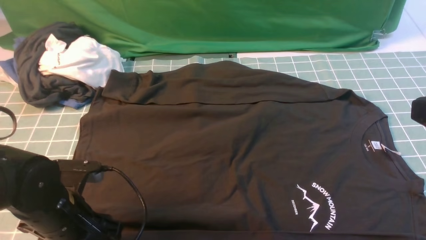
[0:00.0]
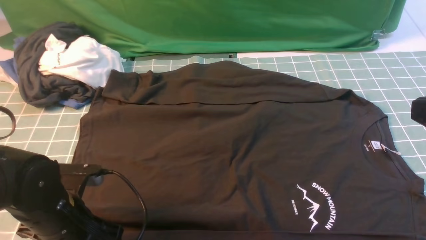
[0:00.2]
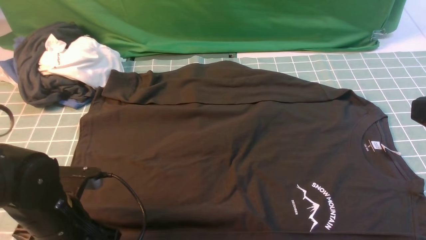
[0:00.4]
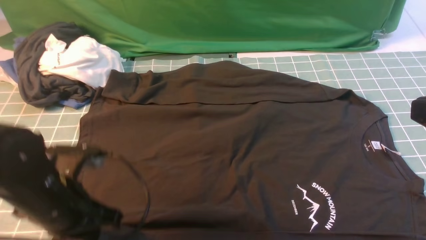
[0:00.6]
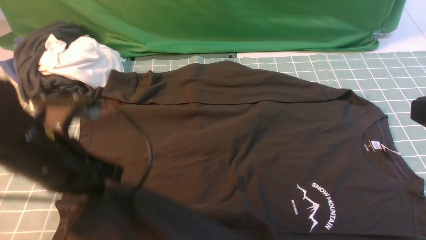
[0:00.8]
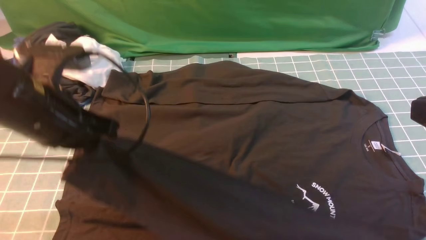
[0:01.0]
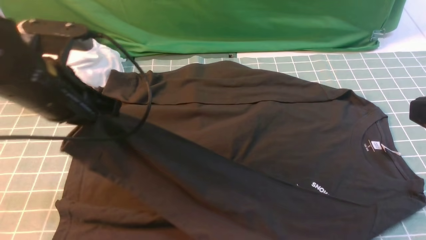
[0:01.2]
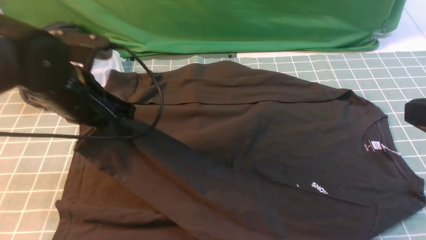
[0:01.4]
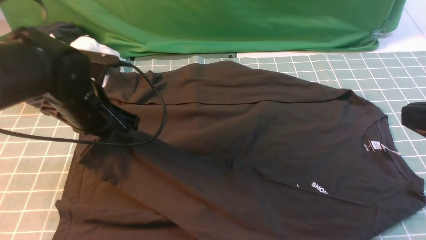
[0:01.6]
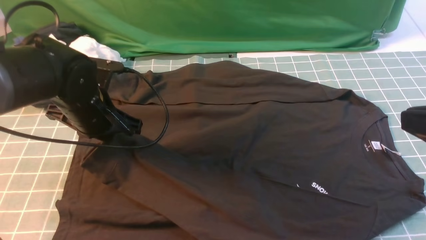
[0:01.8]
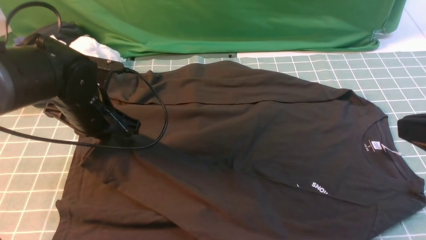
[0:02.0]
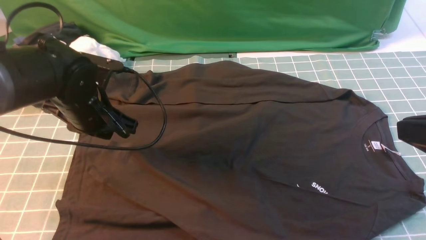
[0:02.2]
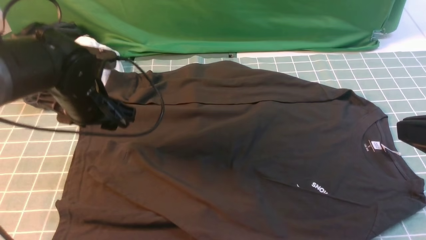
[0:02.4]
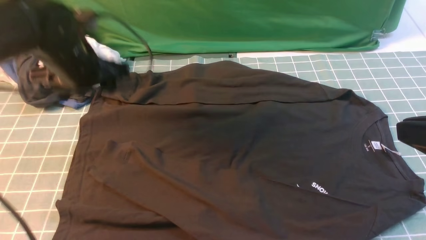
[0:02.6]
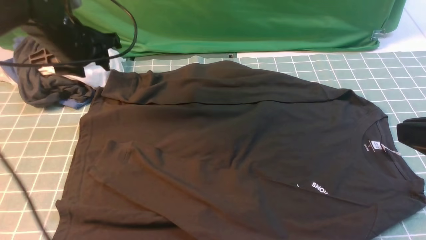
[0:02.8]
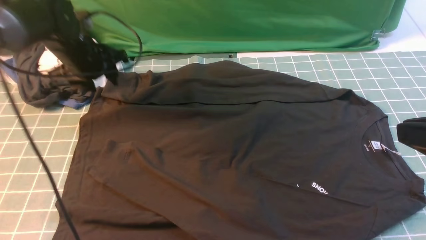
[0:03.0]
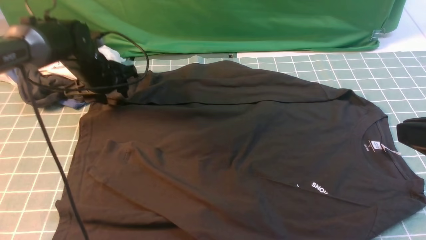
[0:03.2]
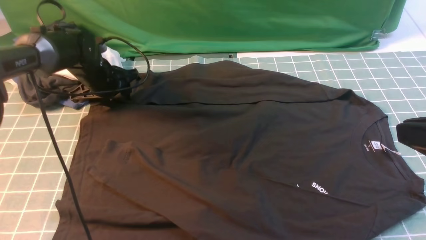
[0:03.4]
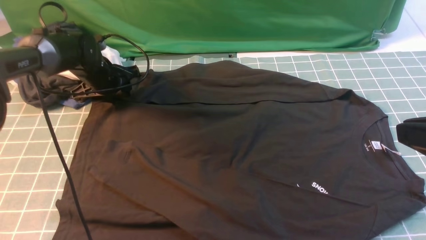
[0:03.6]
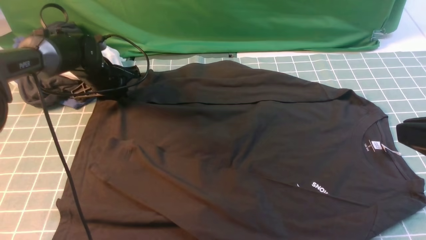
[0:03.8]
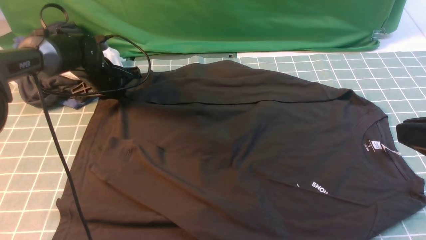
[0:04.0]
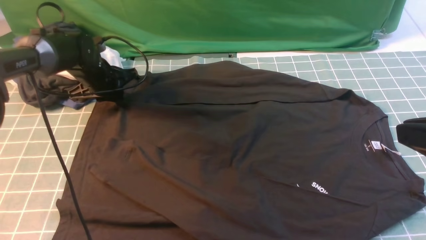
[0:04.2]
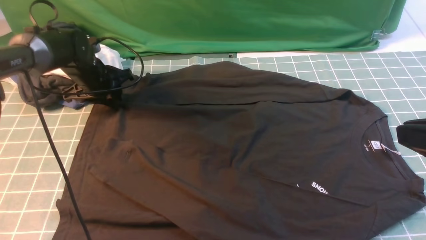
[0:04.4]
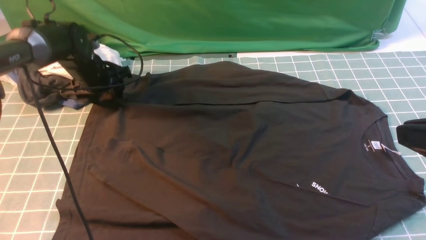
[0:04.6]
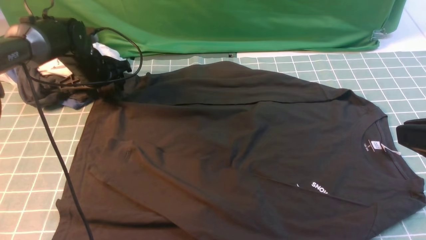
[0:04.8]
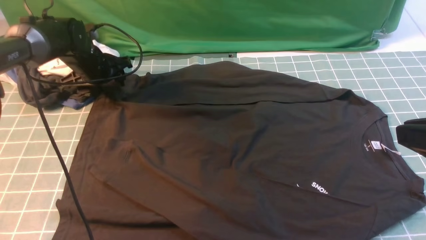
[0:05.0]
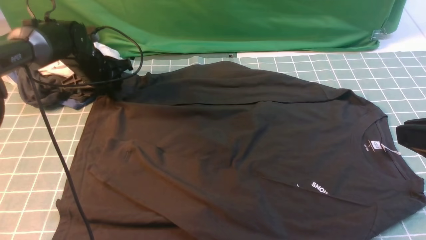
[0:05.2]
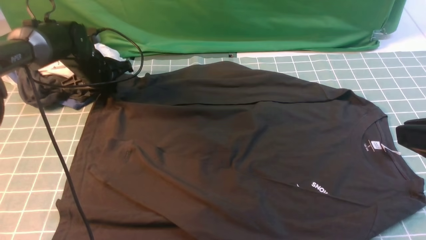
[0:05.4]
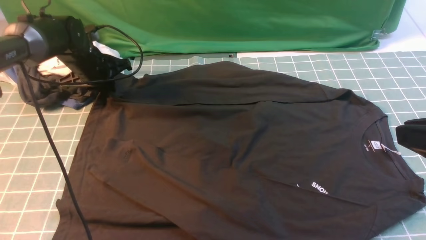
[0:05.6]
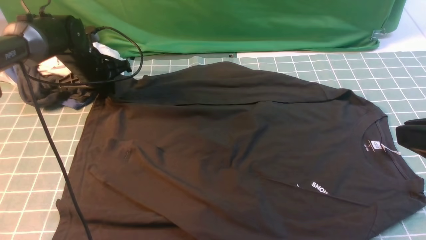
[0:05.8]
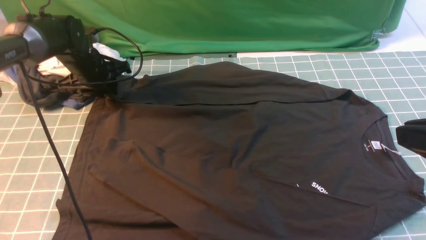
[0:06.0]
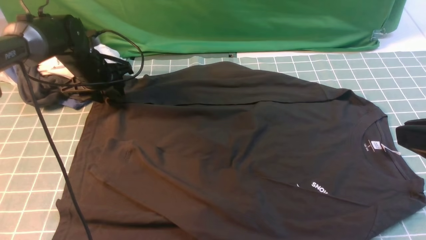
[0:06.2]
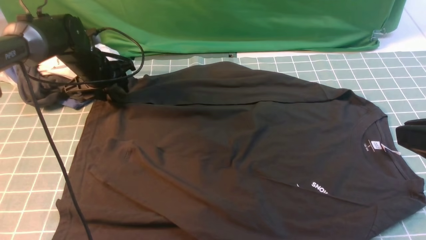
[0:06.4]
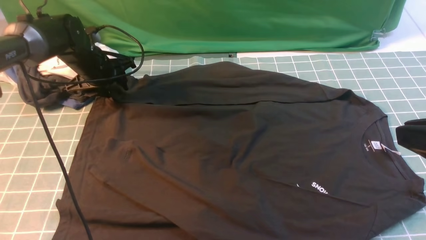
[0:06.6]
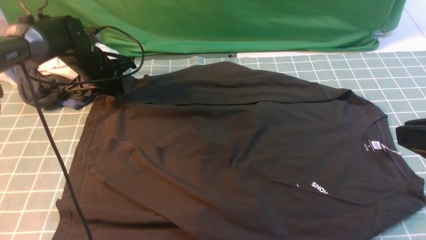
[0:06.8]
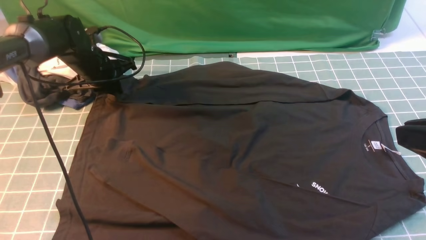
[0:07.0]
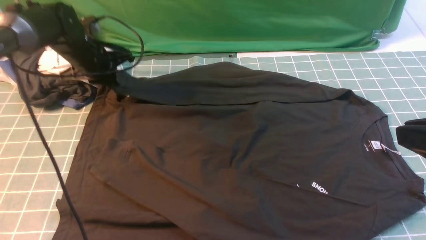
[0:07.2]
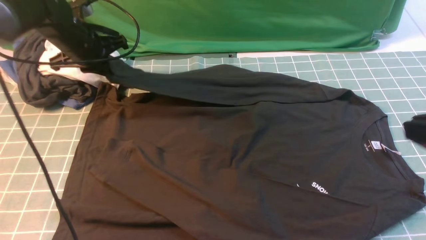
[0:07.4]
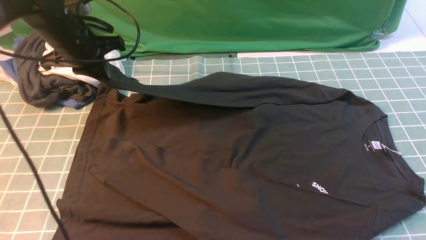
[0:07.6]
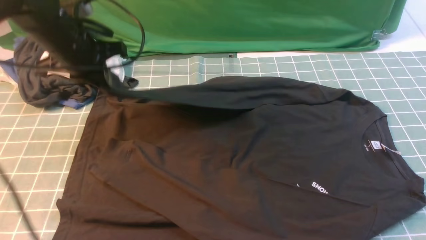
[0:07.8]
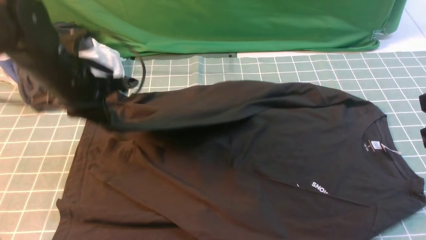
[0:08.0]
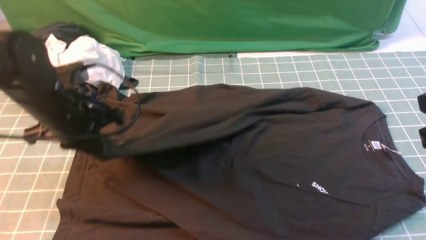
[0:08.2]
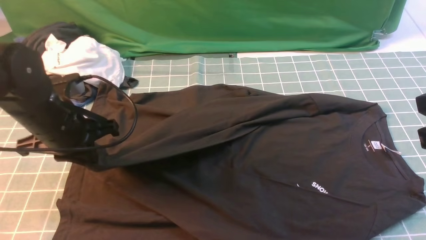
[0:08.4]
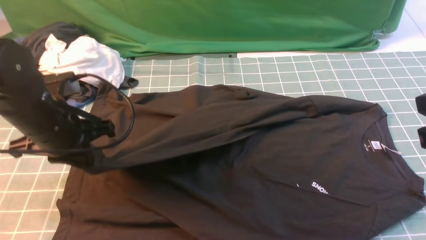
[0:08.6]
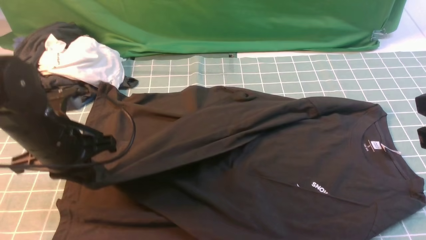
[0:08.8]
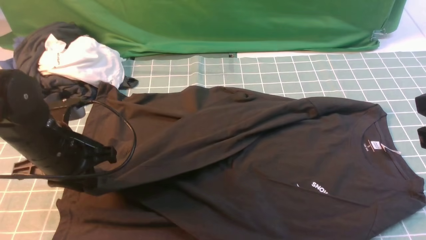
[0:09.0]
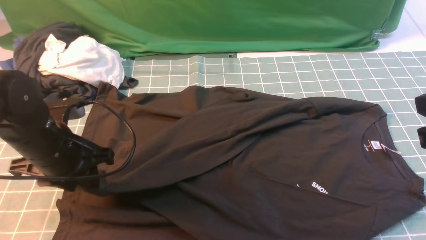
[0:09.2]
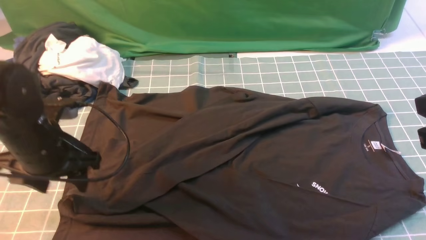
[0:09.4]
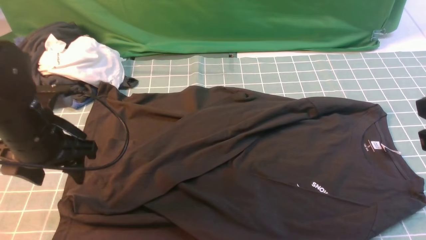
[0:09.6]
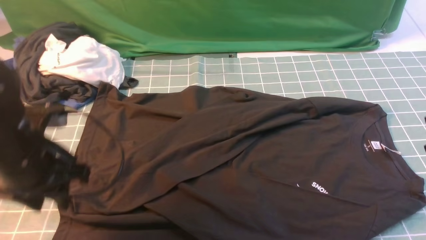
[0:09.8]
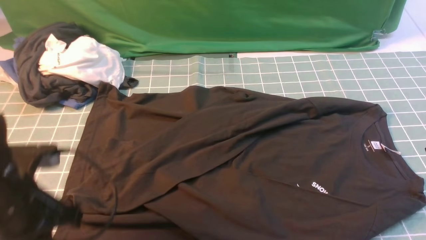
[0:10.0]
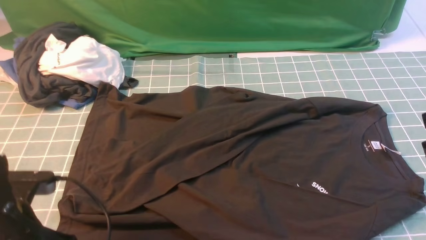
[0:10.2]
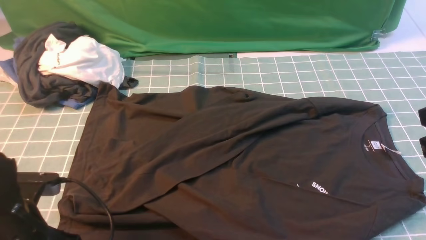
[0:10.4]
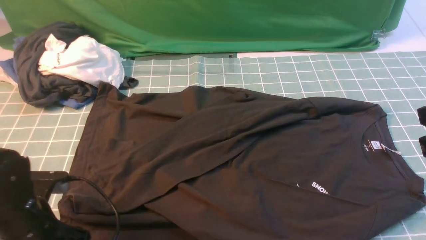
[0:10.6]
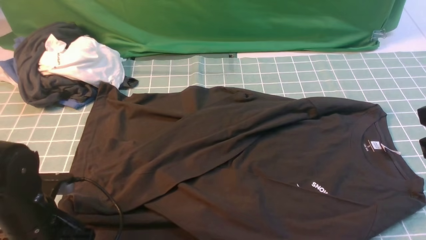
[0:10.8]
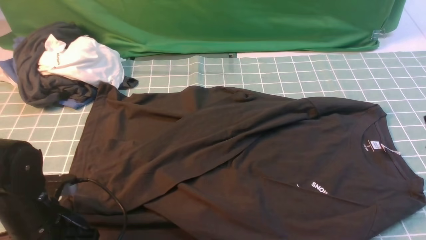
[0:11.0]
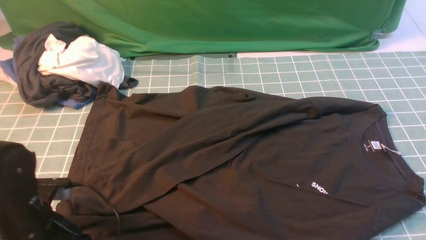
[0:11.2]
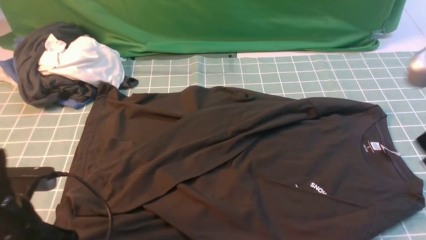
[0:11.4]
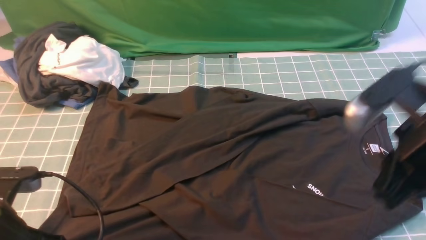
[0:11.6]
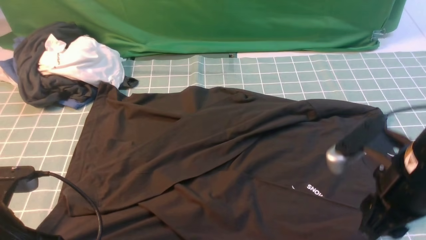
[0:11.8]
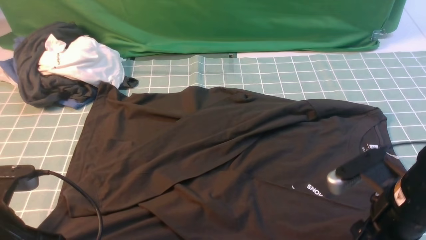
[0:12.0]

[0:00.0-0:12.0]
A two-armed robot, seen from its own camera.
Step, 0:00.6 to 0:02.0: use the left arm to drag and place the cuff at the centered position on the left edge of the fabric.
Step, 0:02.4 to 0:07.0: use the left arm to clamp the cuff farthest from it.
Step, 0:07.2 to 0:09.6: use the left arm to drag and drop the cuff onto the cuff closest to the left arm.
0:00.0 to 0:01.6: The left gripper travels forward and upward by approximately 15 cm, and closes up.
0:01.6 to 0:03.0: The left gripper moves forward and to the left, approximately 15 cm, and opens up.
0:03.0 to 0:04.4: The left gripper goes roughly 5 cm downward, and closes, then reopens.
0:04.4 to 0:06.0: The left gripper closes and opens again.
0:06.0 to 0:07.6: The left gripper goes about 10 cm upward and backward, and closes up.
0:07.6 to 0:09.0: The left gripper is displaced backward by some 15 cm.
0:09.0 to 0:10.4: The left gripper is displaced backward by about 10 cm, and opens its fingers.
0:10.4 to 0:12.0: The left gripper ends up some 5 cm from where it was, and closes; the right gripper travels downward by roughly 15 cm, and opens its fingers.

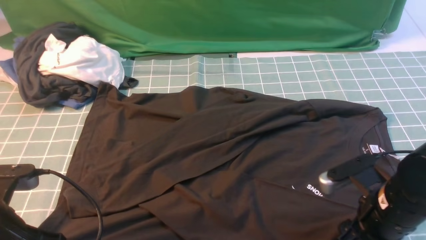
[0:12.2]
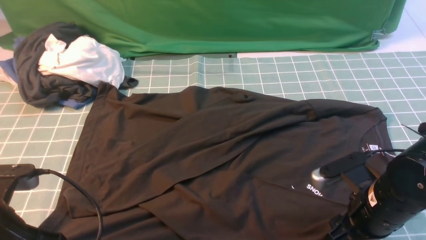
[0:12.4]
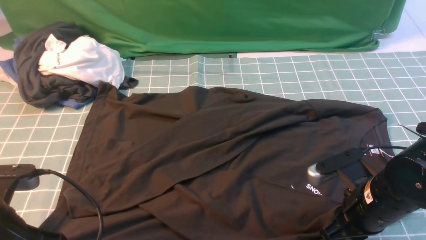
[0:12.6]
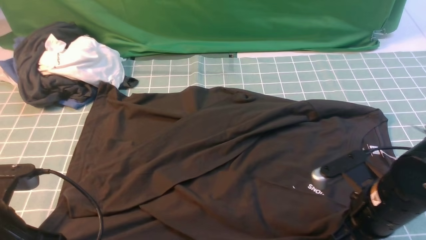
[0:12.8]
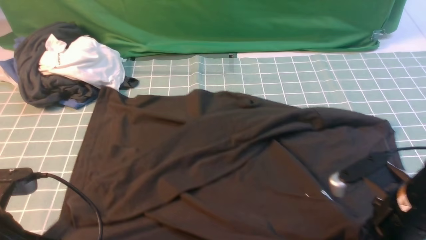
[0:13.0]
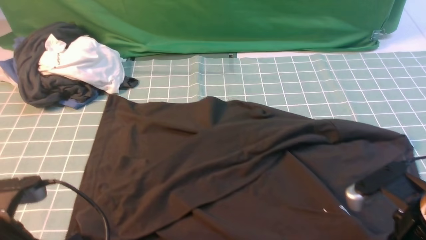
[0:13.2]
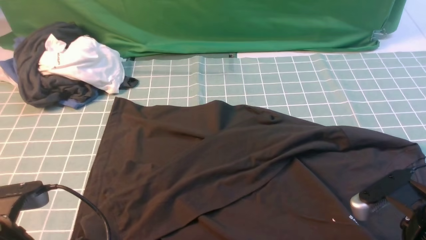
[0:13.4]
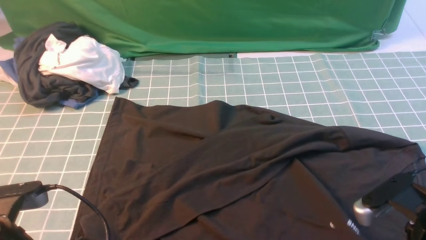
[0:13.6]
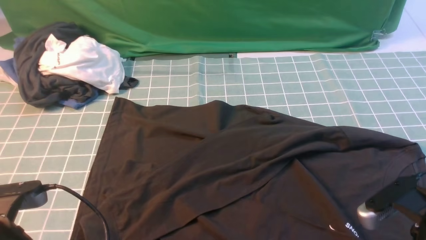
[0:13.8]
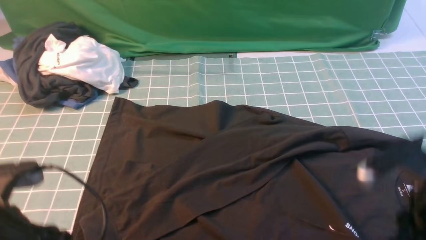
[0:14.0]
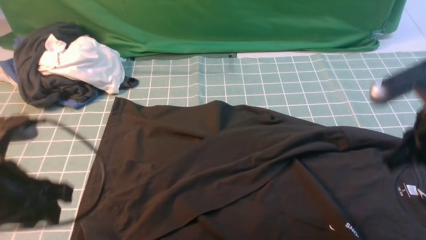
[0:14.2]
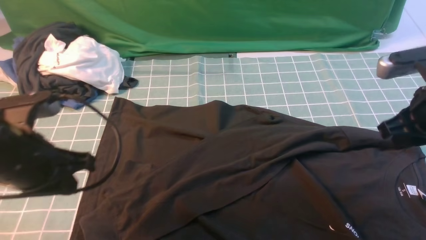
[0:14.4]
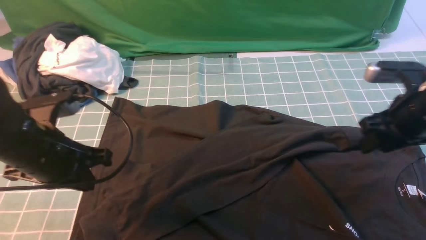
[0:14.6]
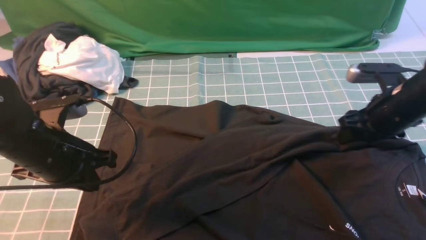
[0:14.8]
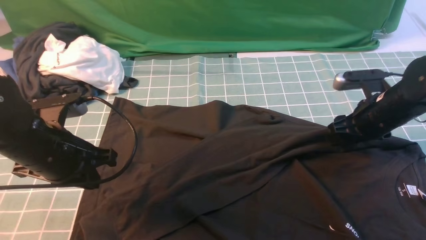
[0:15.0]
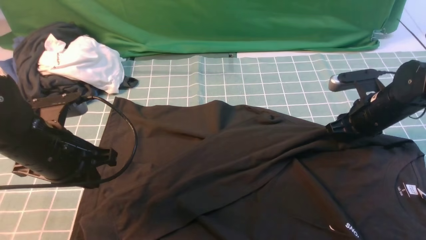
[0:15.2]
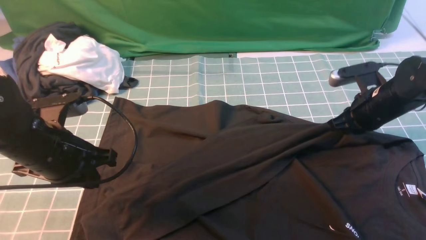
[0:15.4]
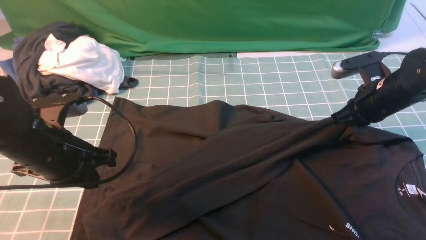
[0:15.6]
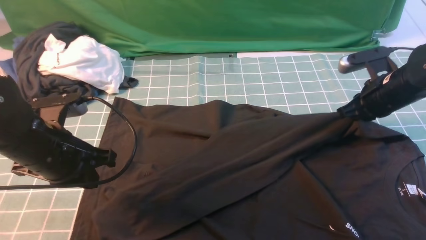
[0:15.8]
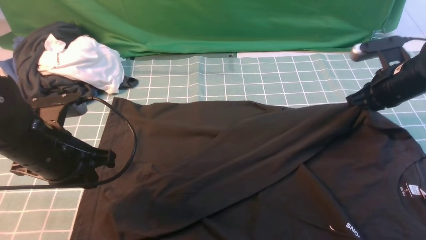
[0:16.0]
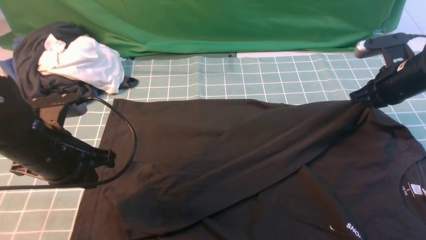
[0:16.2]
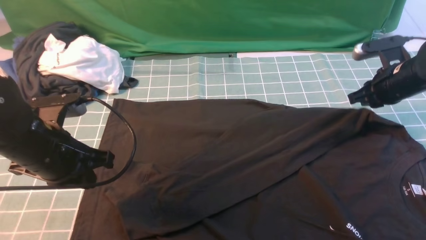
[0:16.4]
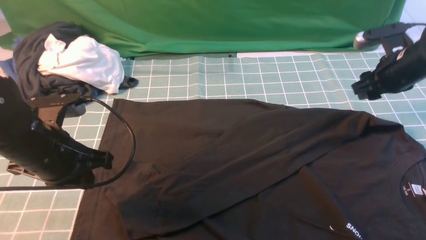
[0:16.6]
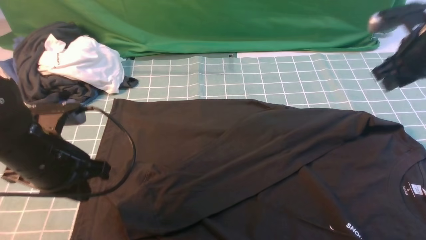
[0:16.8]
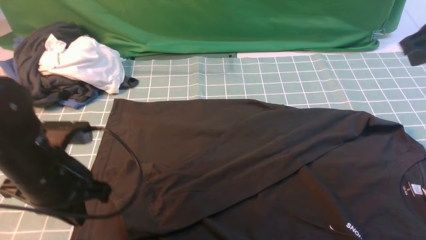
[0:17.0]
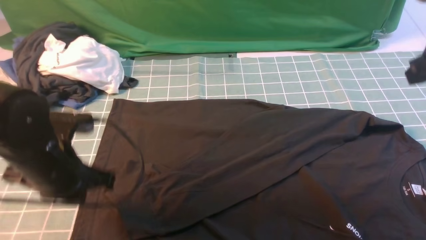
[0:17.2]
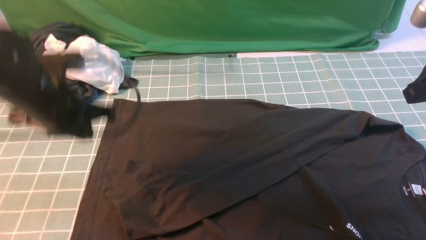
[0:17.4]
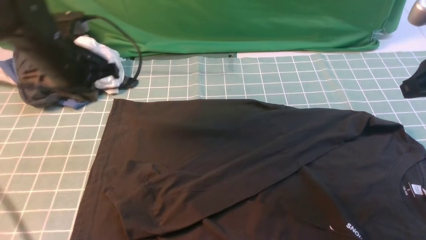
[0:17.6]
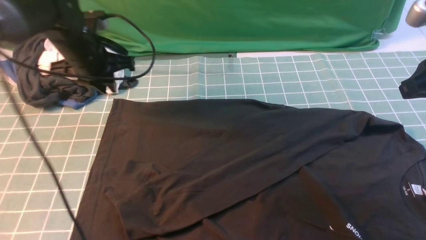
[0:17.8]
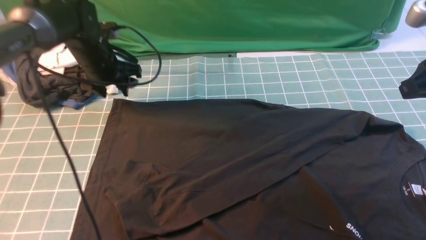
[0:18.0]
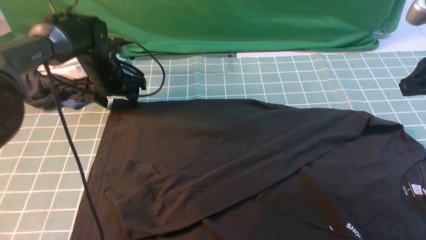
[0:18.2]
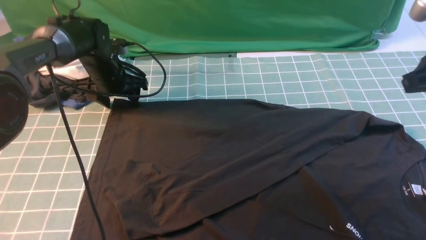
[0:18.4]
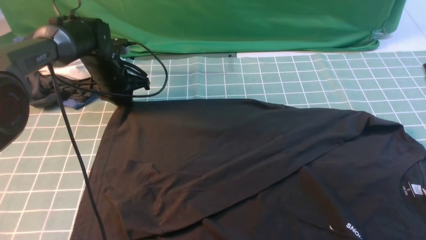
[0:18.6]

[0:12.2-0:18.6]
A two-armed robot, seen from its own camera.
0:12.2 to 0:13.8: The left gripper opens its fingers. Meanwhile the right gripper shifts approximately 5 cm upward, and closes up.
0:13.8 to 0:15.4: The right gripper travels forward by about 20 cm, and closes; the left gripper shifts roughly 10 cm forward, and closes its fingers.
0:15.4 to 0:17.0: The right gripper shifts approximately 15 cm upward.
0:17.0 to 0:18.6: The left gripper is displaced forward by about 25 cm, and opens its fingers.
